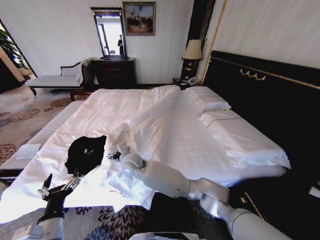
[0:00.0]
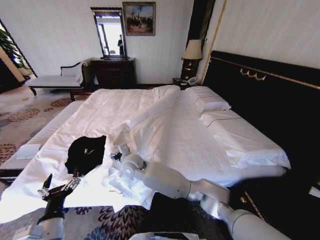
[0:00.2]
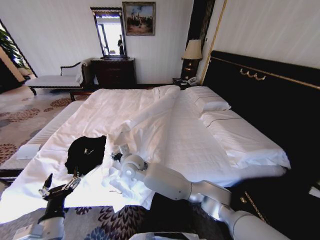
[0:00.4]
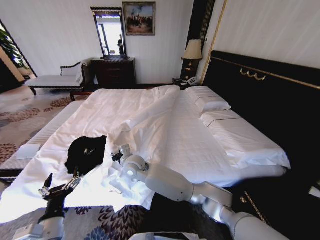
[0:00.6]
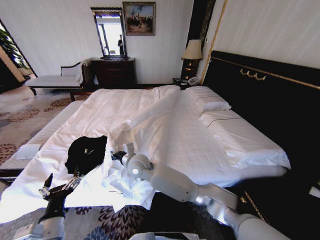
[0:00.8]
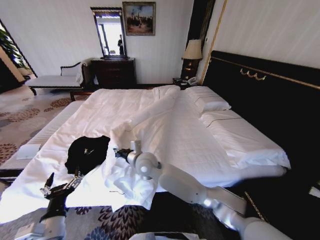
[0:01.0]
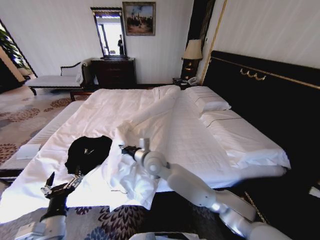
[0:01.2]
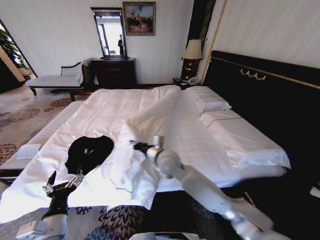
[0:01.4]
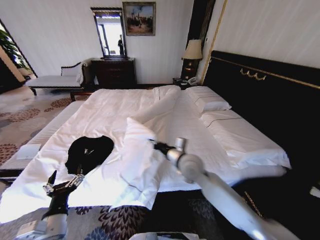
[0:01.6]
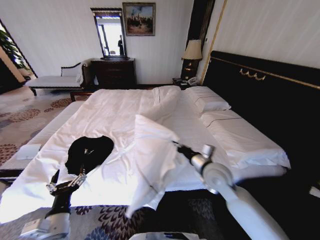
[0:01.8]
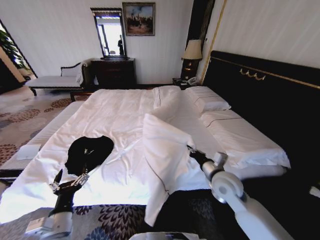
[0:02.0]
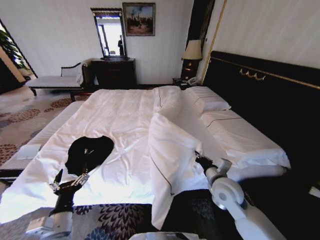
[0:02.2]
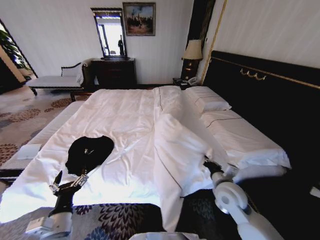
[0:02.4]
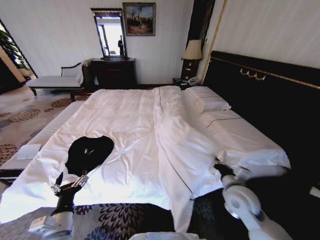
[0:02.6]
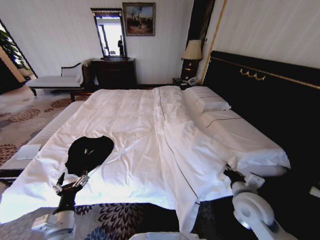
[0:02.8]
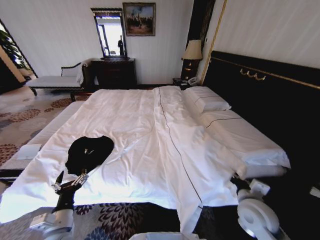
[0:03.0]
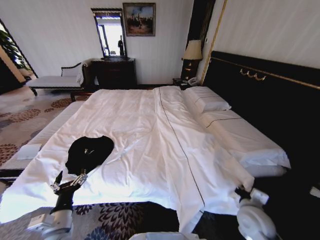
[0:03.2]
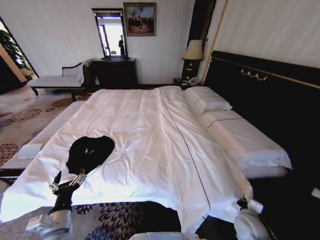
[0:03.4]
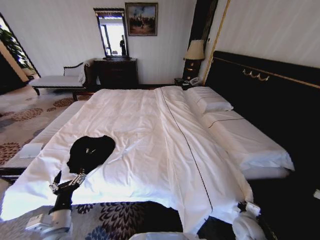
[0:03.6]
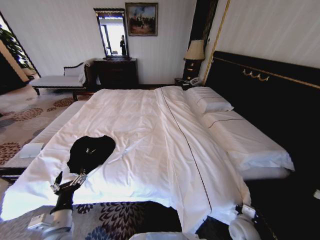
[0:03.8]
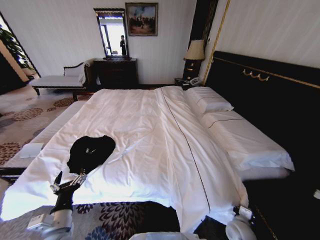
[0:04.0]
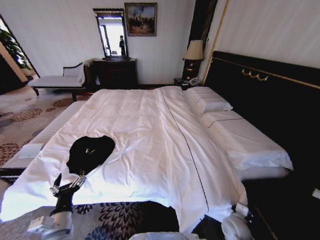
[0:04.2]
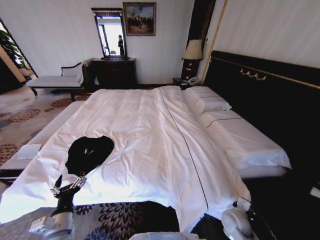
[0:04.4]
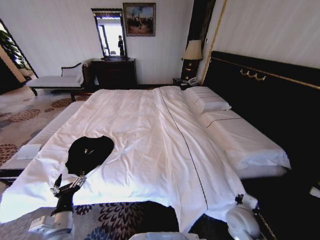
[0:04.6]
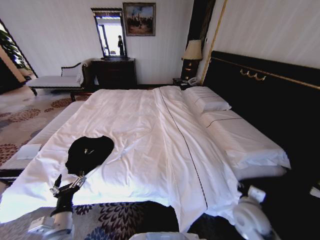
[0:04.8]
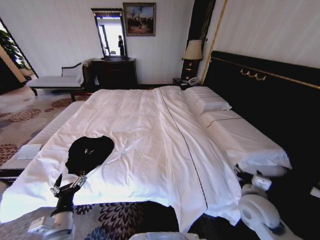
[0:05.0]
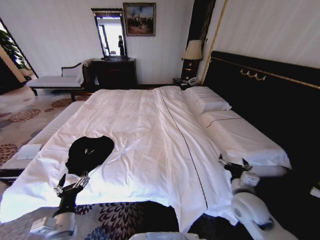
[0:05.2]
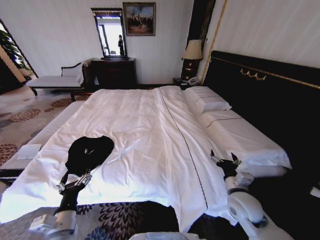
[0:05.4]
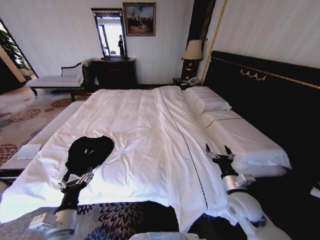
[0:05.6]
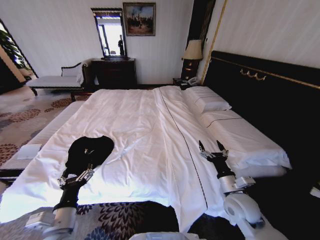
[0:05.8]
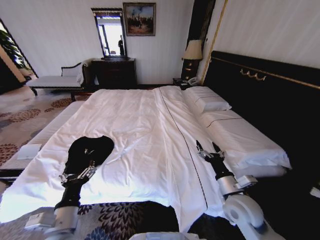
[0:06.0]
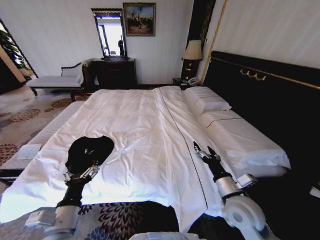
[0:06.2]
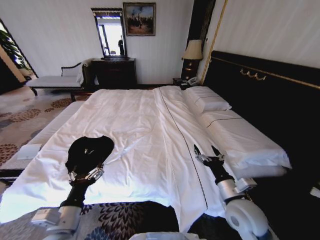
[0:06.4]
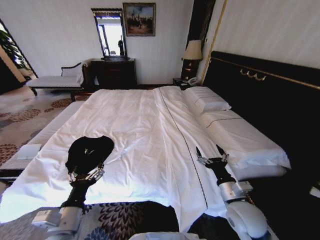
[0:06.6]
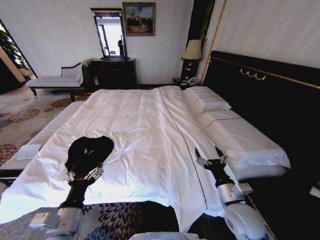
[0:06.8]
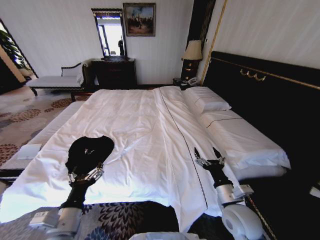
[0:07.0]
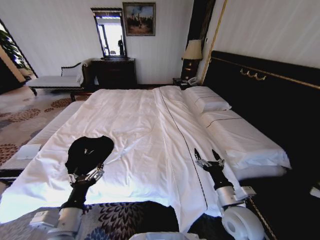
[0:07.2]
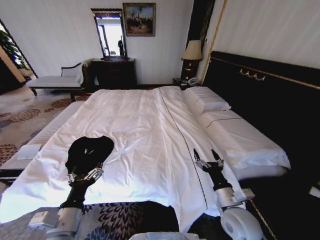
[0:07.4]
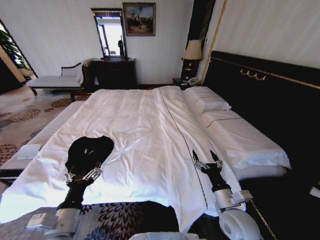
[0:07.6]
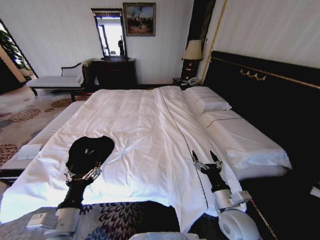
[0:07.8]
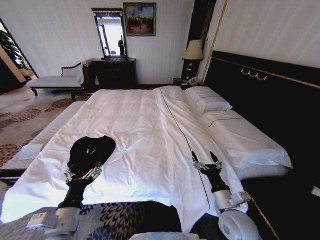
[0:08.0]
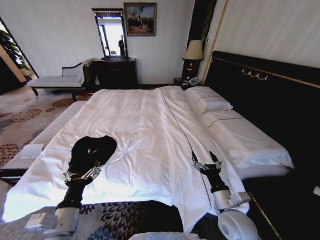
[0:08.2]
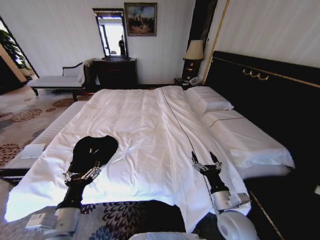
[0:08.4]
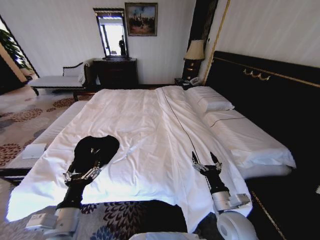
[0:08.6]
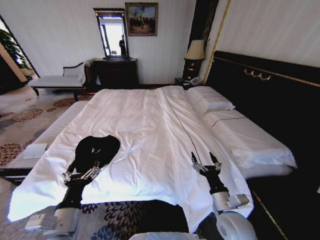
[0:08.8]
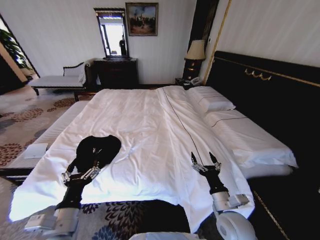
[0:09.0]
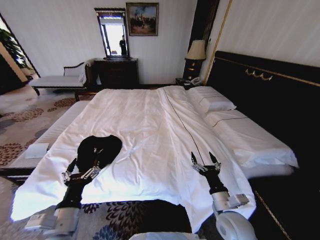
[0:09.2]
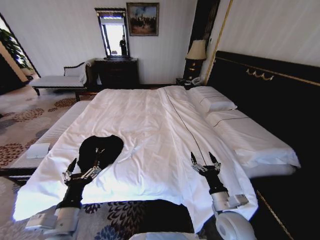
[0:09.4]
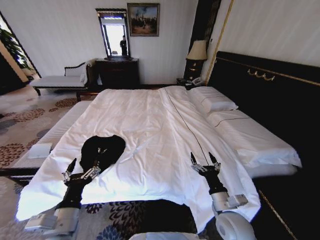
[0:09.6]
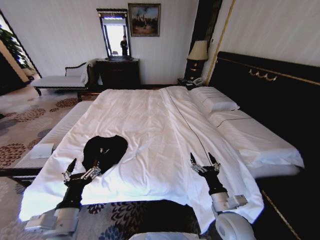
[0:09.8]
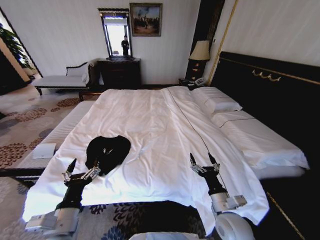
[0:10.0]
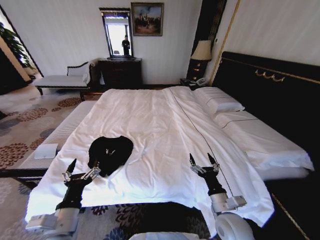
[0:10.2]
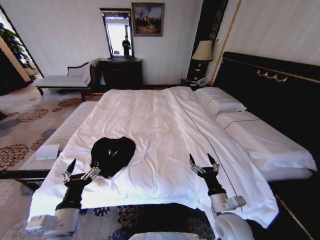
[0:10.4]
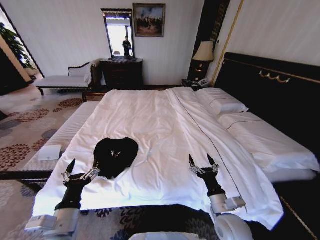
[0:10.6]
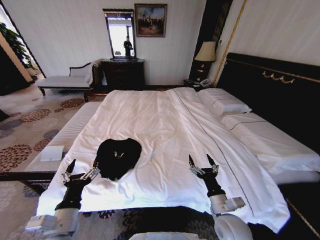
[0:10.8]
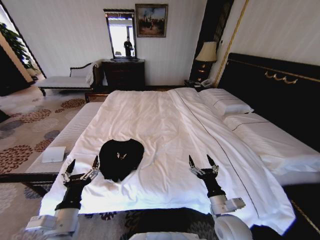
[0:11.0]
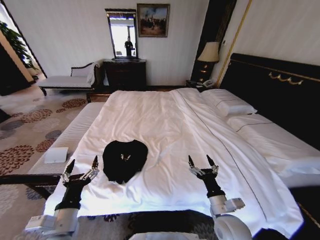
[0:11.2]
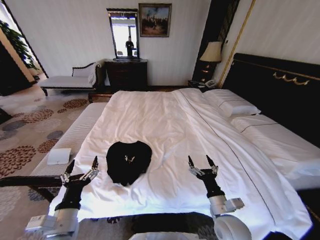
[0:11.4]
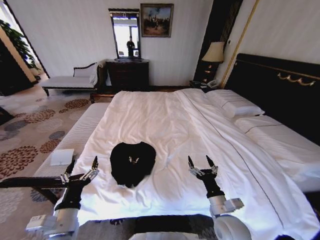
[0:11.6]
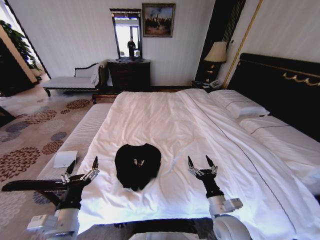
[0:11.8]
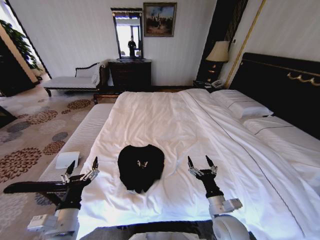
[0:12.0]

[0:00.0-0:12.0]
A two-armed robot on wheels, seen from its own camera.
Task of the whole recording: Fold the clothes on the bed.
0:00.0 to 0:01.6: The right gripper goes roughly 25 cm to the right, and closes up.
0:01.6 to 0:03.0: The right gripper travels to the right and backward by some 25 cm.
0:03.0 to 0:04.4: The right gripper travels downward by approximately 15 cm.
0:04.4 to 0:06.0: The left gripper goes some 5 cm upward; the right gripper is displaced upward by roughly 15 cm, and opens.
0:06.0 to 0:07.6: The right gripper shifts by approximately 5 cm.

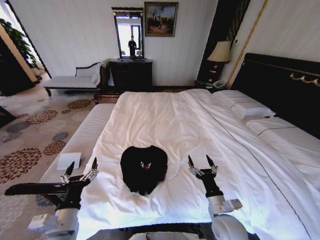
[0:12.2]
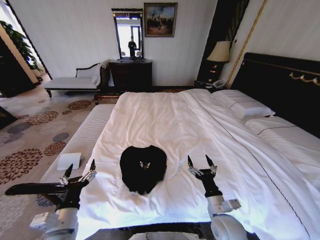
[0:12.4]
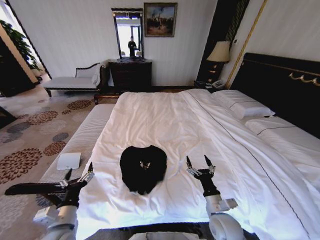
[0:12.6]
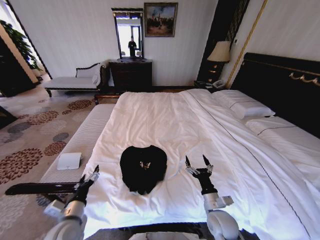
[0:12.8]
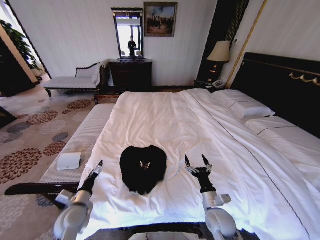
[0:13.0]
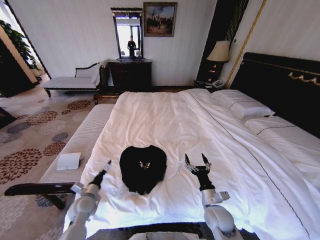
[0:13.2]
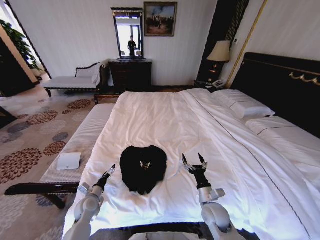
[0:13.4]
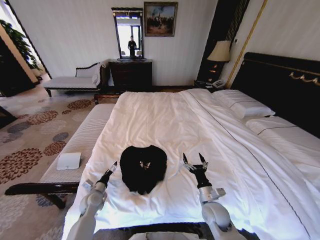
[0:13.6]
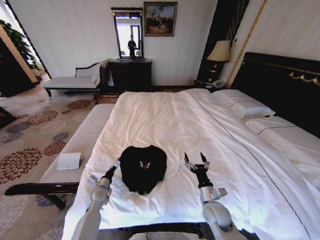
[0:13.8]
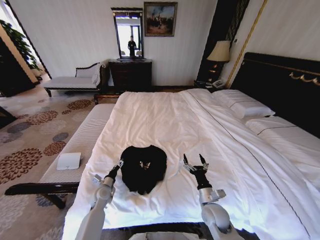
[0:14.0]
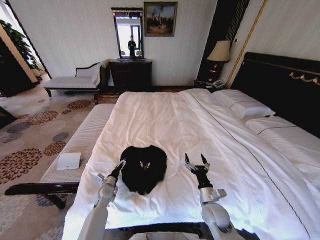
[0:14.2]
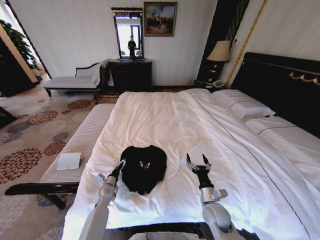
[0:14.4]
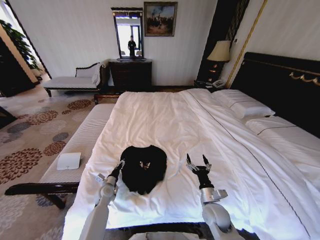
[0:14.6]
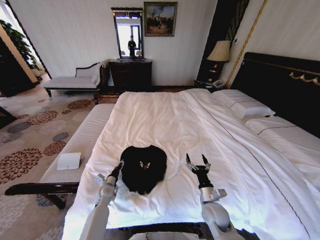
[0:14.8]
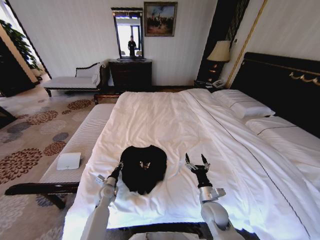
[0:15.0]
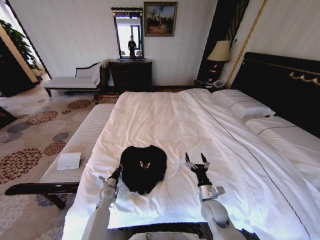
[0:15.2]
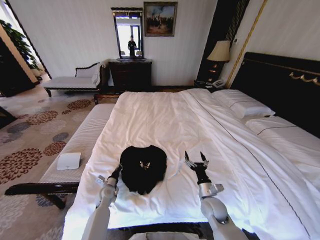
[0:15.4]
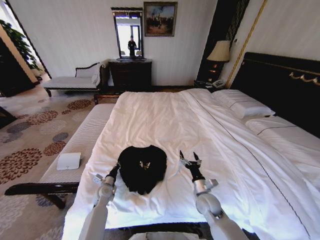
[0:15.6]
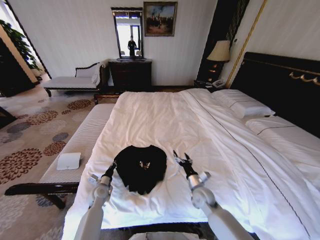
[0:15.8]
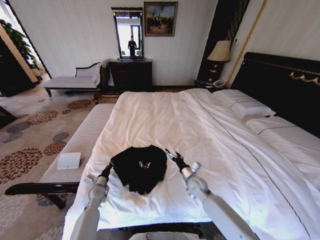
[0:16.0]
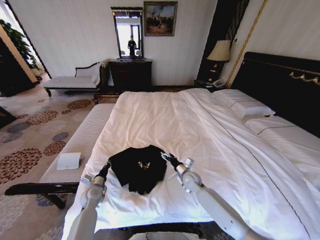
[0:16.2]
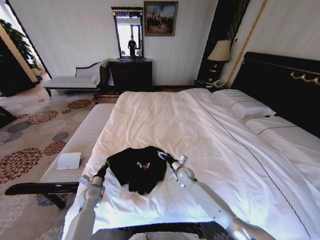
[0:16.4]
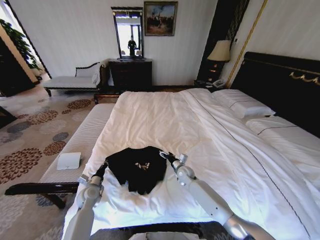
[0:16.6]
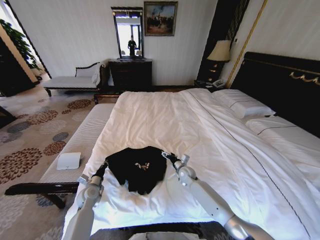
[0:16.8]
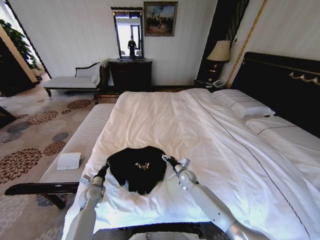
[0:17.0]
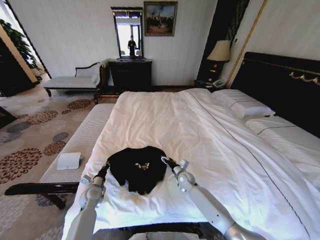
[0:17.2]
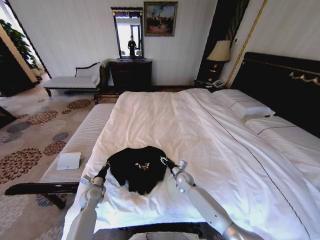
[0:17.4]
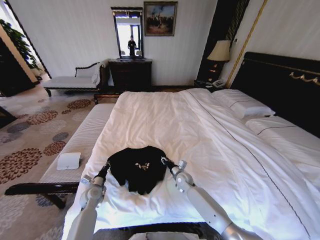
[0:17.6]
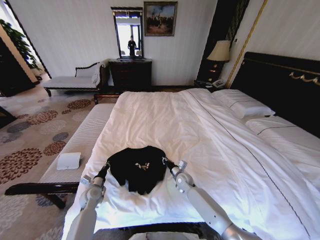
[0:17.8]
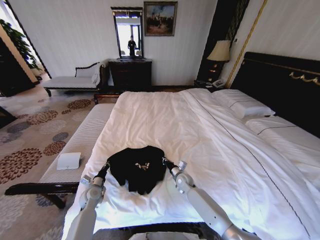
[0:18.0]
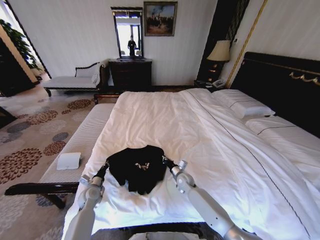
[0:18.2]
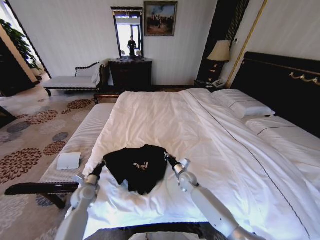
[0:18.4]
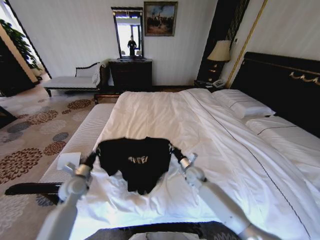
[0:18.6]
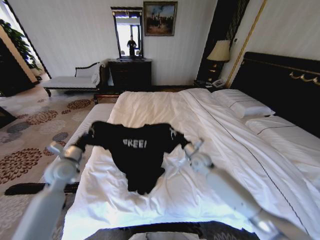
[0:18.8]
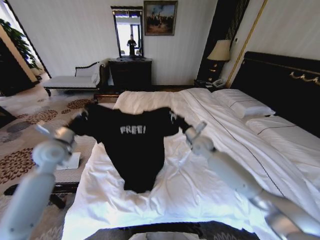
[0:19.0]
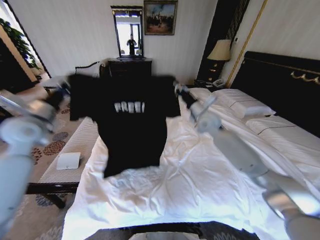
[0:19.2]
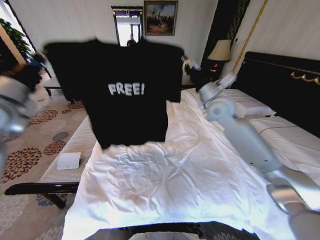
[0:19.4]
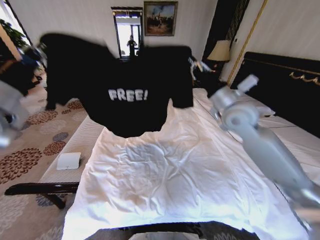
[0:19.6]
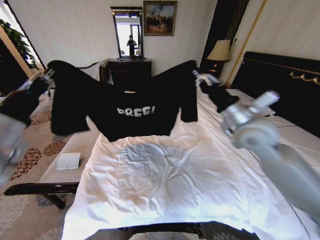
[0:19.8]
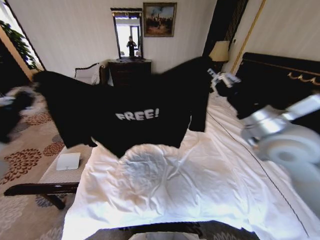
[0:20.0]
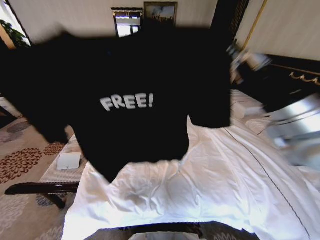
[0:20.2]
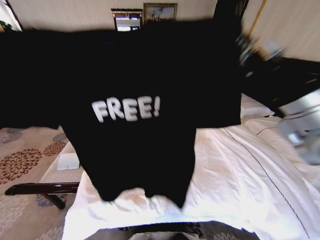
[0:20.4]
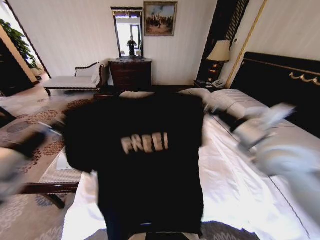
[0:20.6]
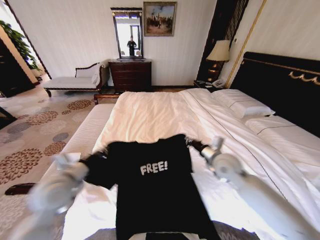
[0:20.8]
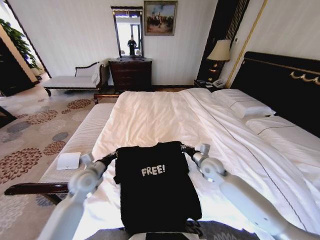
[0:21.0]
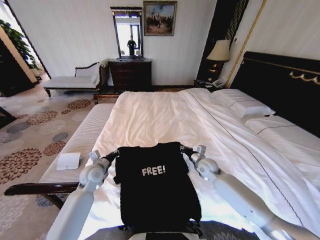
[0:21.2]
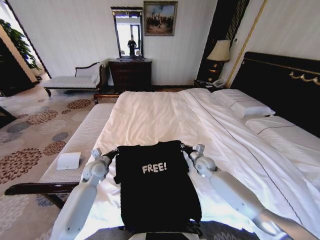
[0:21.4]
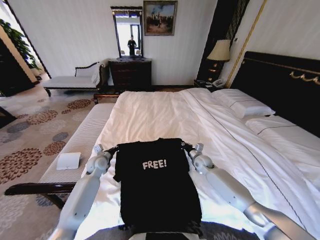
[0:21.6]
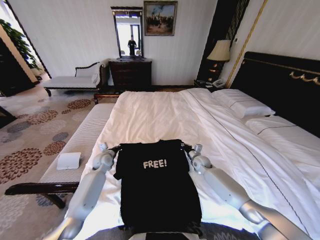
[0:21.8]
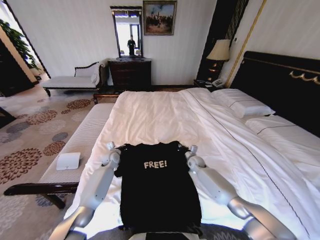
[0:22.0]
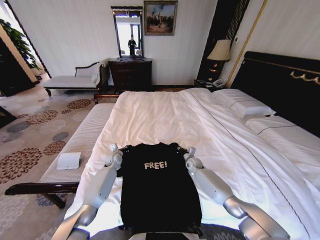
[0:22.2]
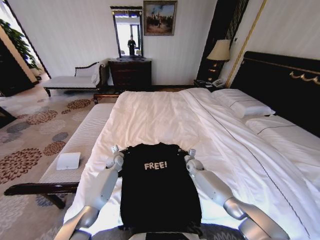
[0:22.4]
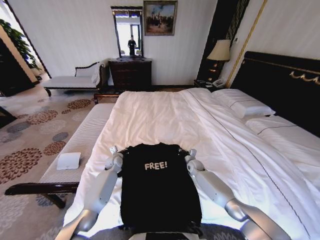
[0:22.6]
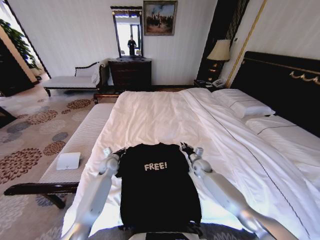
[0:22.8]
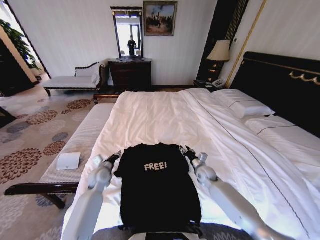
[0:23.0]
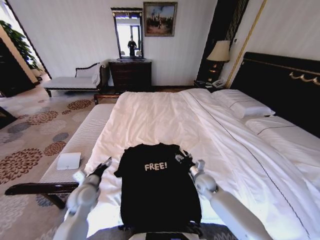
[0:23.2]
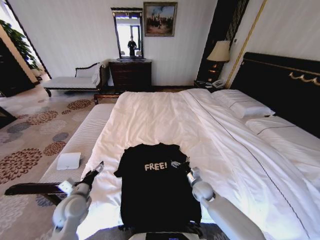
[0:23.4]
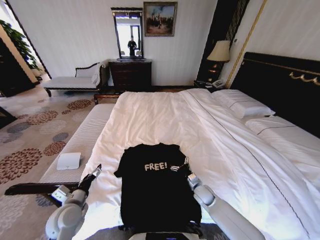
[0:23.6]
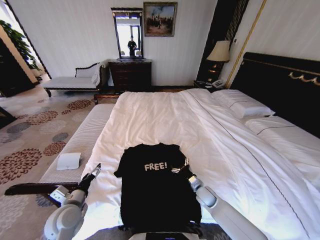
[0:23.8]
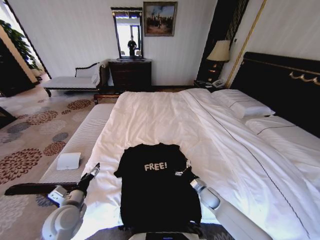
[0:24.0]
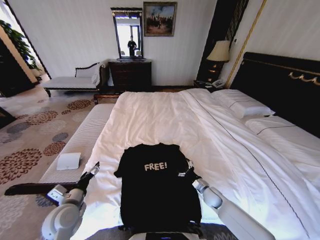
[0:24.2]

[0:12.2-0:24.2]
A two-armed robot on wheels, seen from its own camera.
Task of the whole recording: Fold the clothes on the bed.
0:12.2 to 0:13.8: The right gripper moves forward and downward, approximately 5 cm; the left gripper goes roughly 25 cm forward and downward.
0:13.8 to 0:15.2: The left gripper closes its fingers.
0:15.2 to 0:16.6: The left gripper travels to the left by roughly 5 cm, while the right gripper travels forward by approximately 20 cm.
0:16.6 to 0:18.2: The right gripper closes up.
0:18.2 to 0:19.8: Both grippers move upward, approximately 40 cm.
0:19.8 to 0:21.2: The right gripper heads downward, covering some 30 cm; the left gripper is displaced downward and forward by approximately 30 cm.
0:21.2 to 0:22.6: The right gripper shifts about 15 cm downward and forward. The left gripper heads forward and downward, covering approximately 15 cm.
0:22.6 to 0:24.2: The left gripper shifts roughly 30 cm backward, and opens its fingers. Meanwhile the right gripper is displaced backward by about 15 cm, and opens up.
